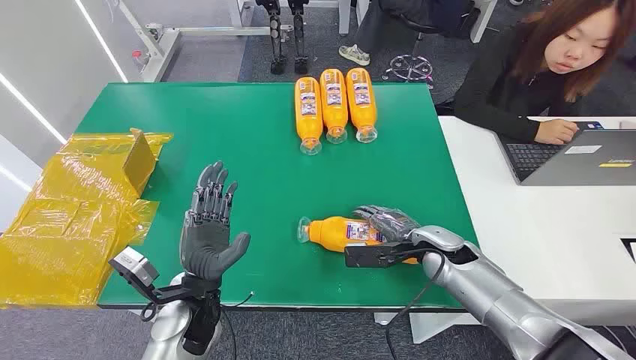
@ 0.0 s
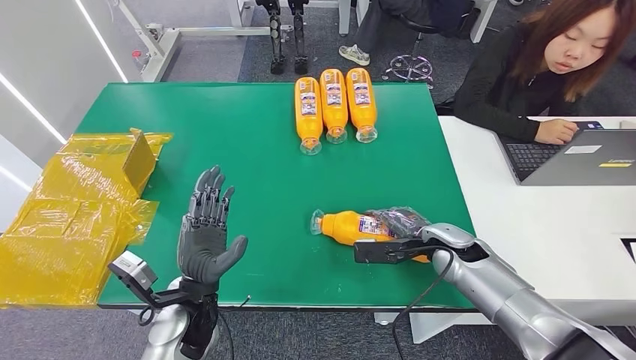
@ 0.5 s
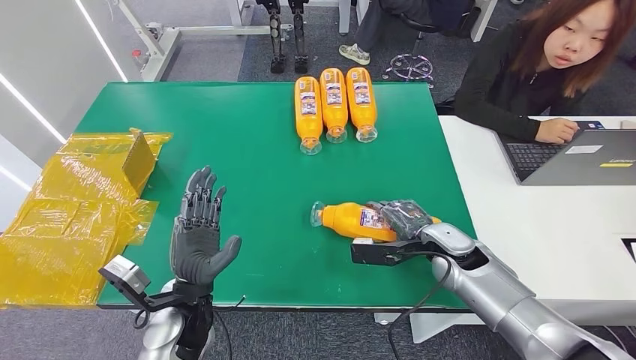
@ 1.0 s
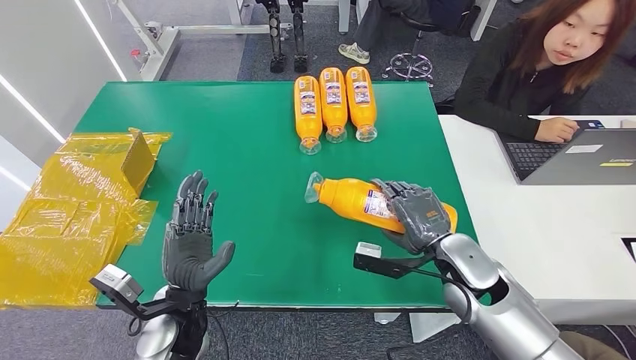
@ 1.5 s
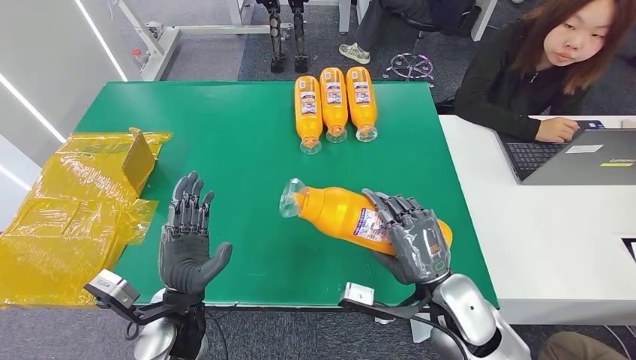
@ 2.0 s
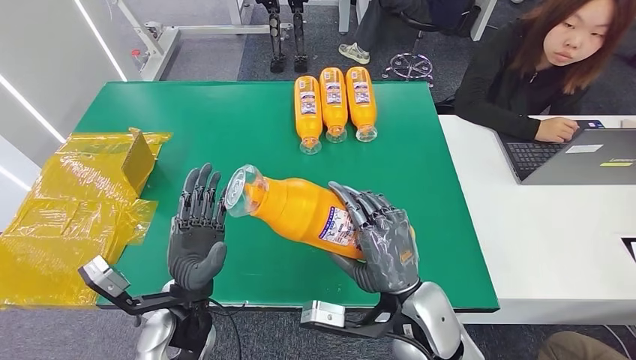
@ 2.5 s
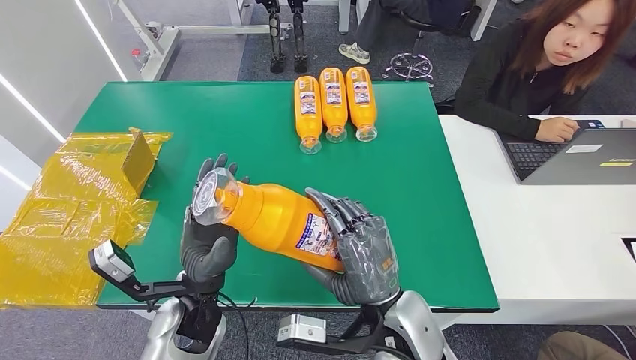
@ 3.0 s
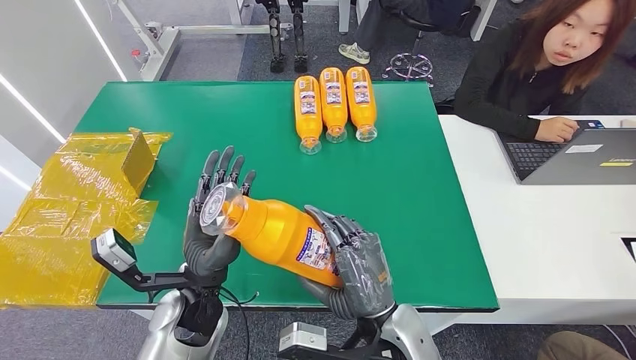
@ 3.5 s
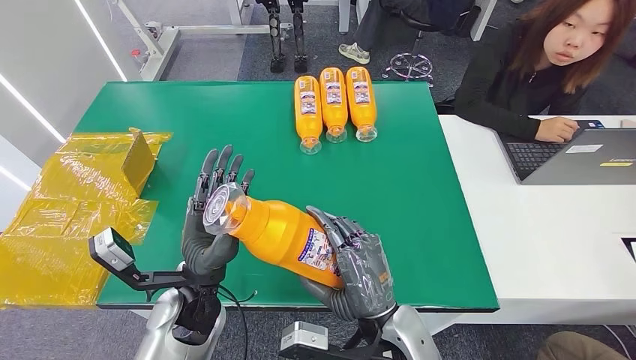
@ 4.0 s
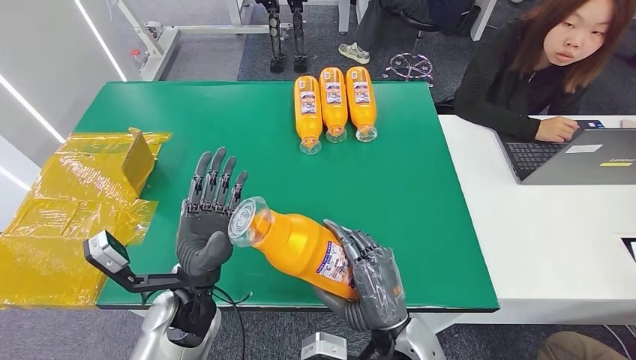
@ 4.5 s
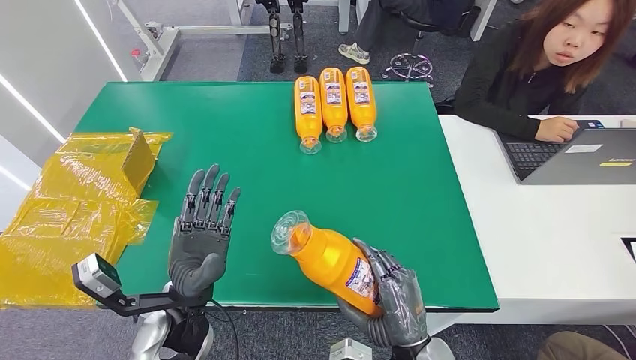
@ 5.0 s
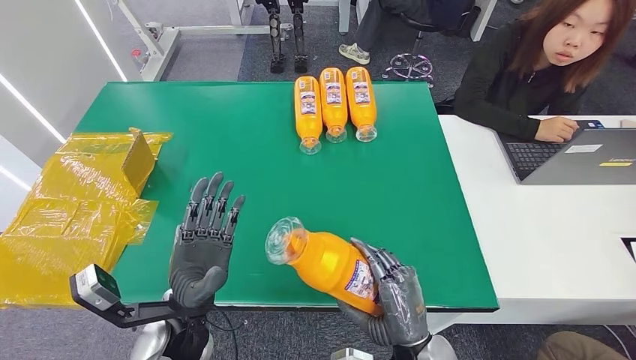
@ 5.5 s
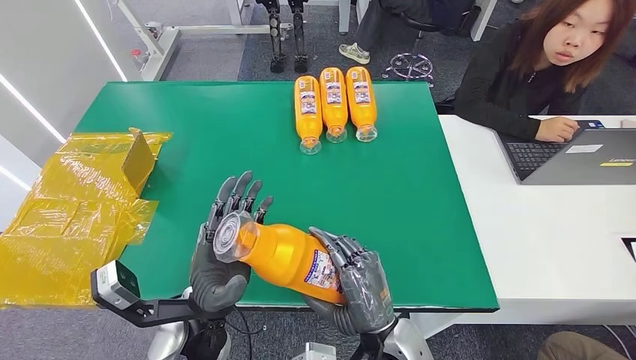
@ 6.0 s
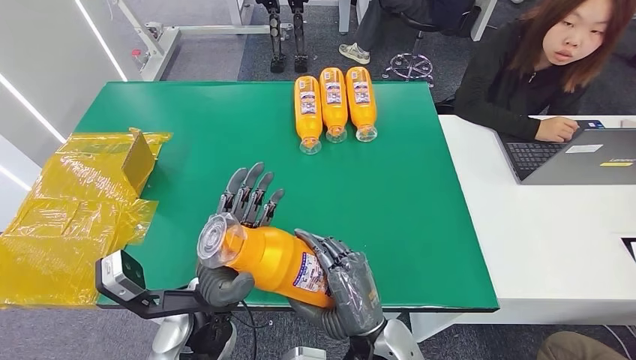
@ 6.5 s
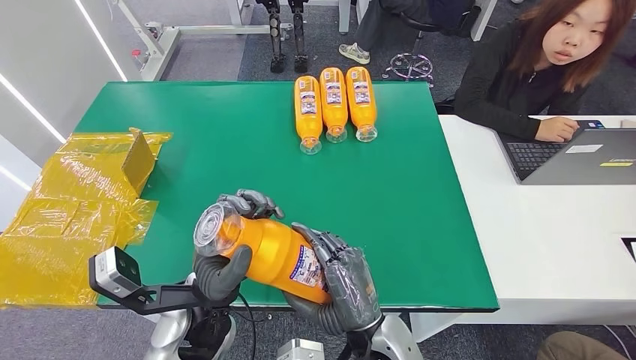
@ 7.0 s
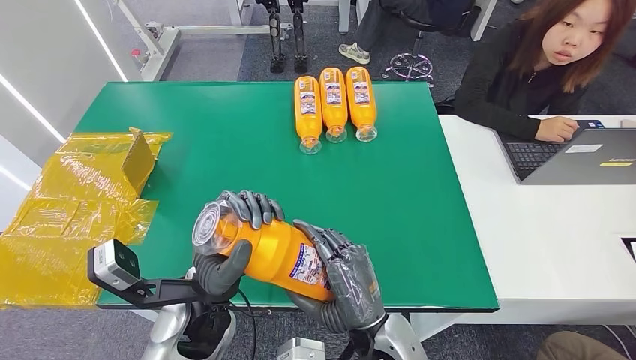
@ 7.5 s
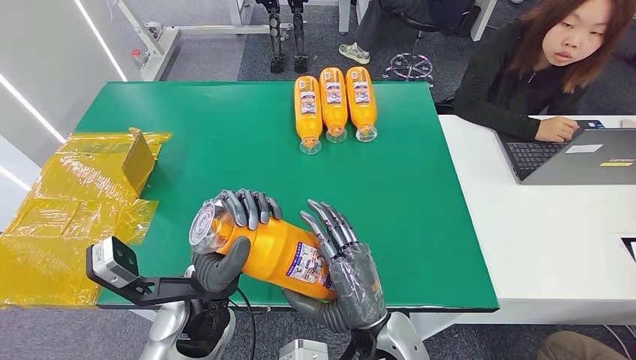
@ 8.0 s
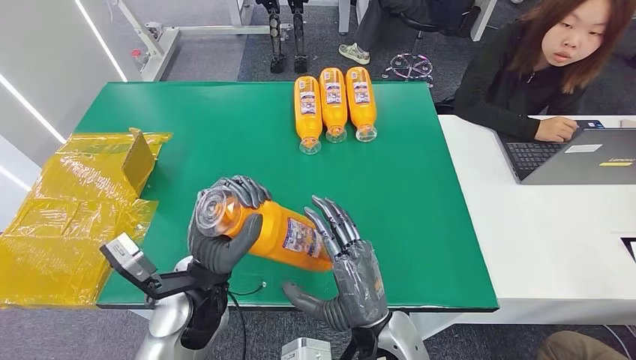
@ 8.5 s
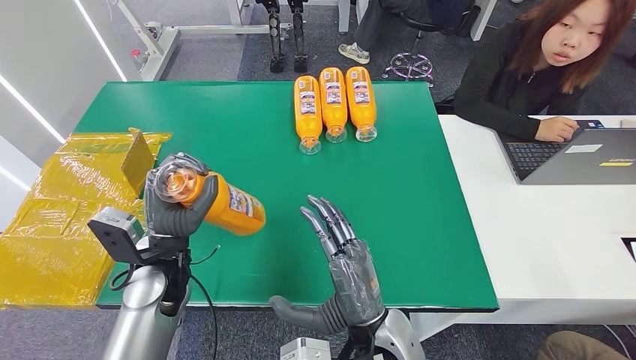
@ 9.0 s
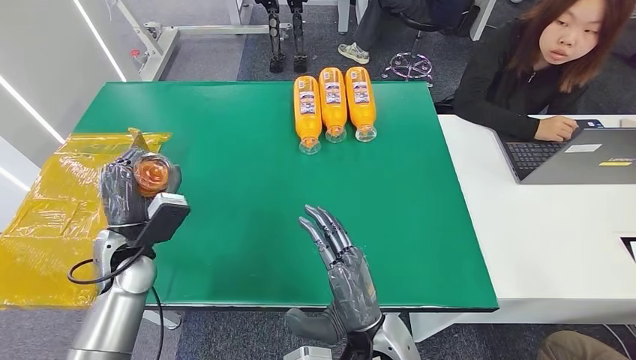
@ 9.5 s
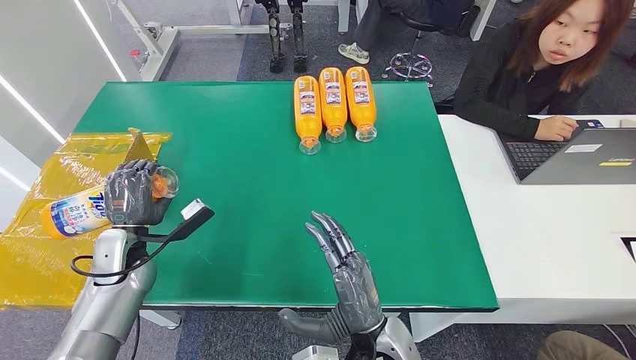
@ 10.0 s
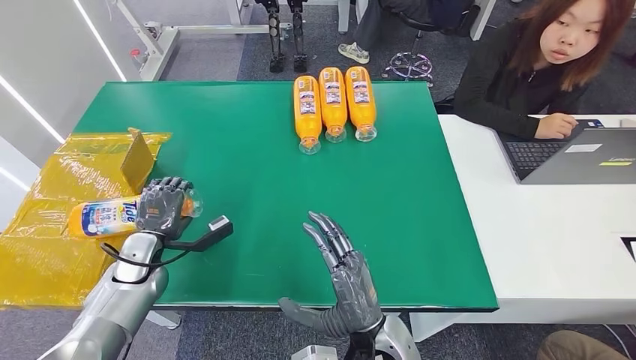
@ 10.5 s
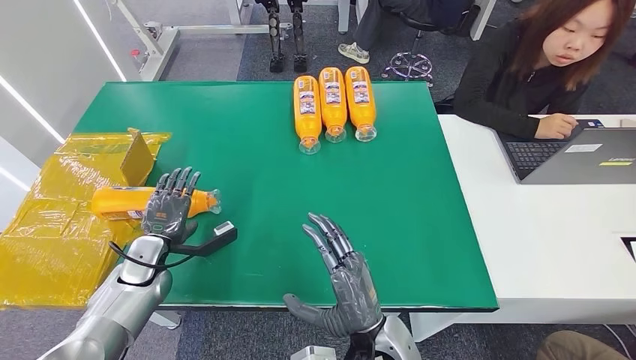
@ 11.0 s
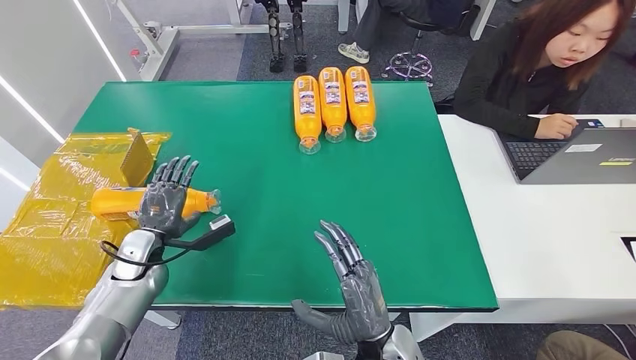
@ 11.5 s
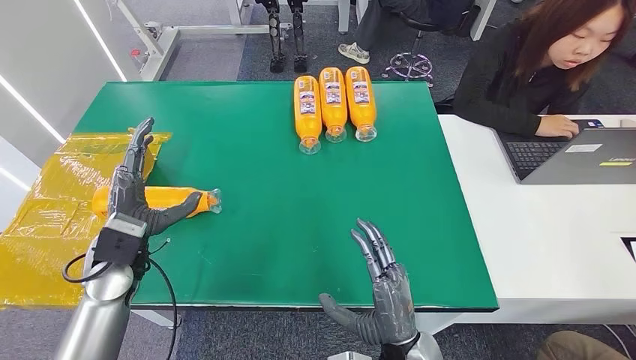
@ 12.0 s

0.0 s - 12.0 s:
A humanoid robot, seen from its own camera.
Step, 0.0 s - 2.5 s: Pick up the bottle from the table.
Step, 3.0 s - 12.0 s: Turn the bottle to the front side.
2.0 s - 4.0 s: The left hand changes place by roughly 5 cm. The right hand shifts some 10 cm to the left and backward.
6.0 s - 8.0 s: There are only small adjustments of the hands.
8.0 s - 10.0 s: The left hand shifts some 25 cm to the left and forward.
10.0 s - 12.0 s: The left hand ends up approximately 5 cm from where it was.
